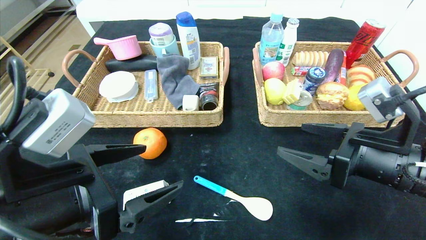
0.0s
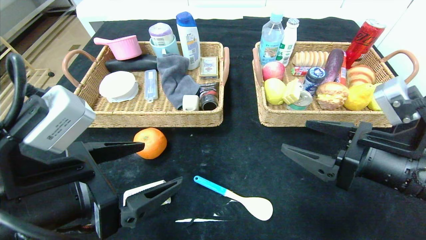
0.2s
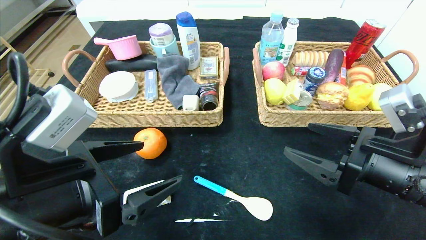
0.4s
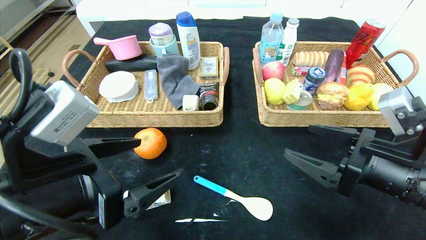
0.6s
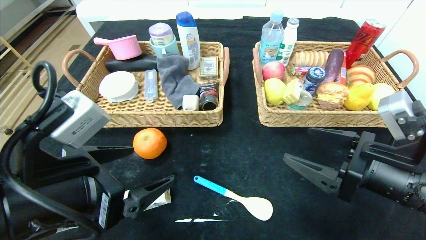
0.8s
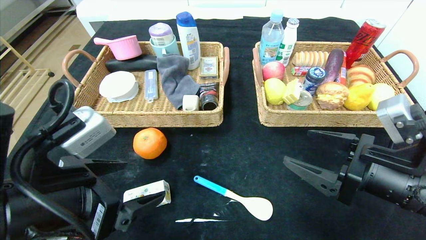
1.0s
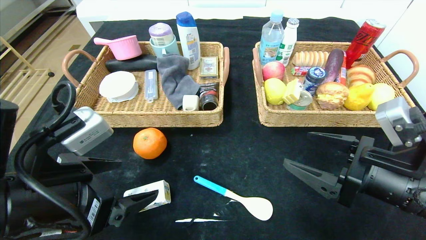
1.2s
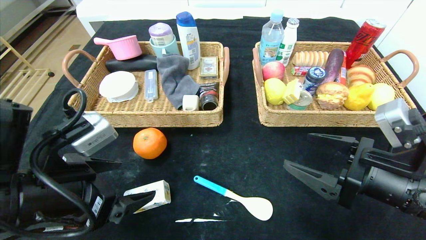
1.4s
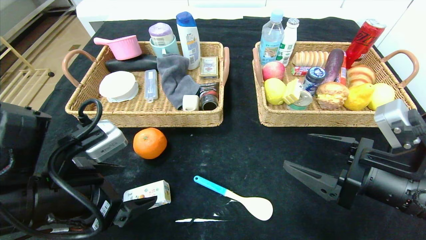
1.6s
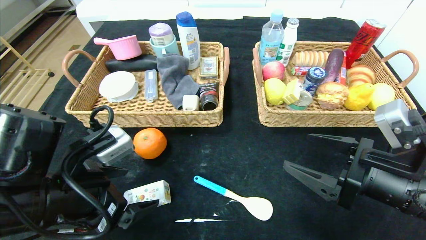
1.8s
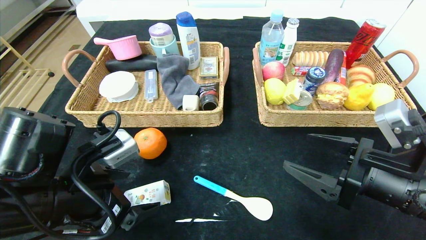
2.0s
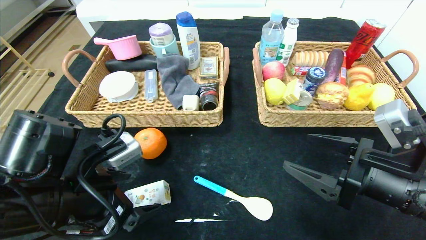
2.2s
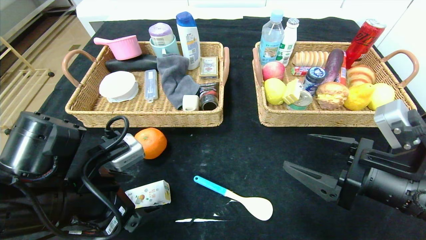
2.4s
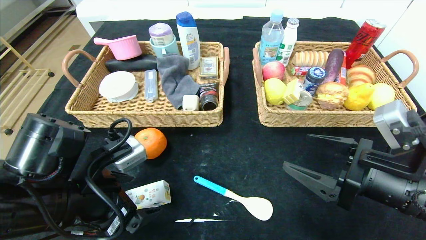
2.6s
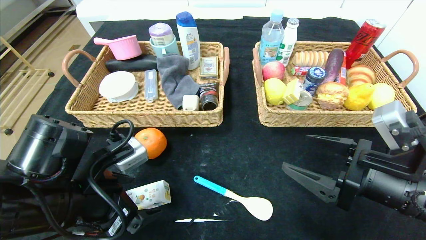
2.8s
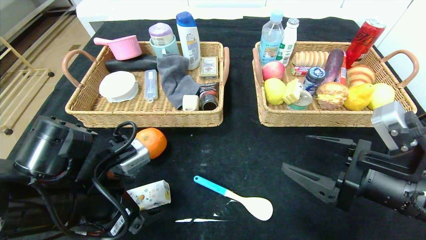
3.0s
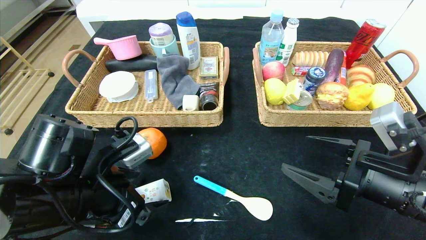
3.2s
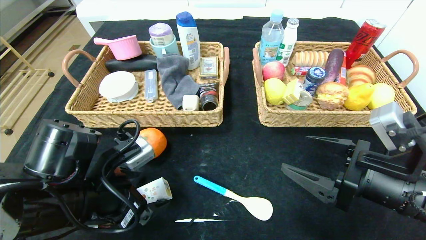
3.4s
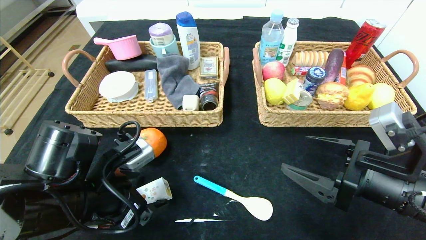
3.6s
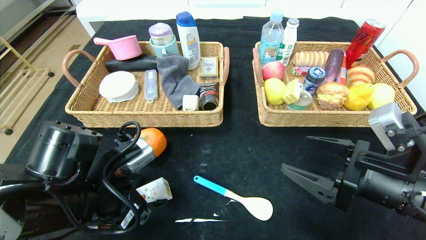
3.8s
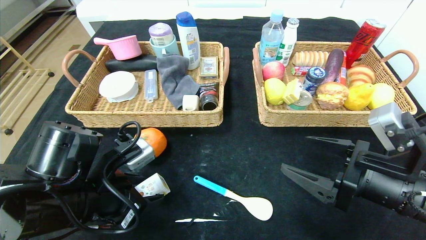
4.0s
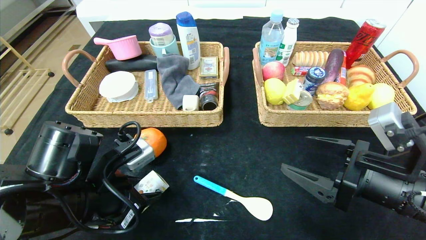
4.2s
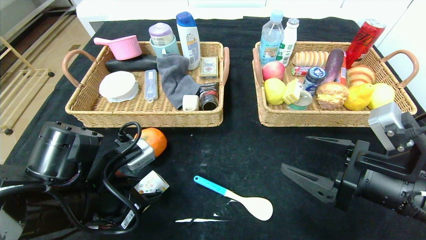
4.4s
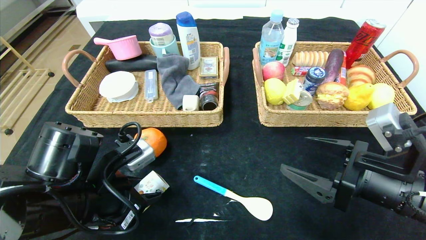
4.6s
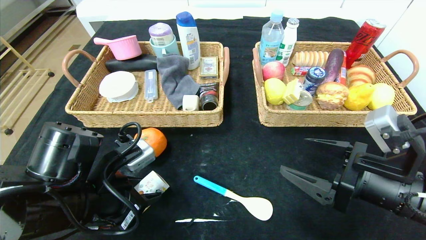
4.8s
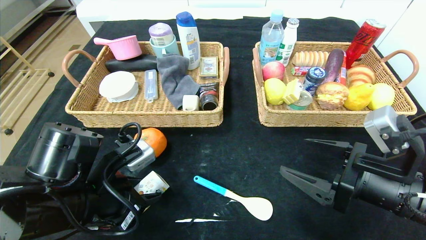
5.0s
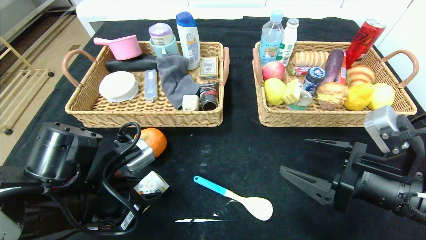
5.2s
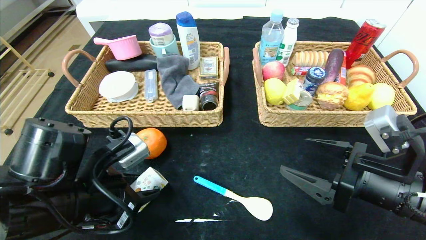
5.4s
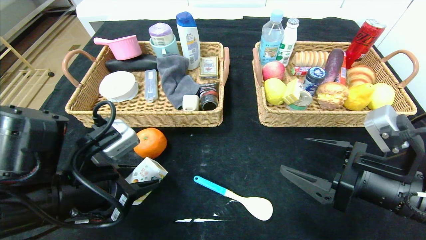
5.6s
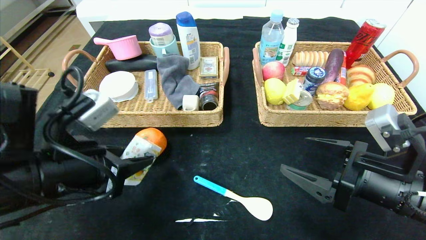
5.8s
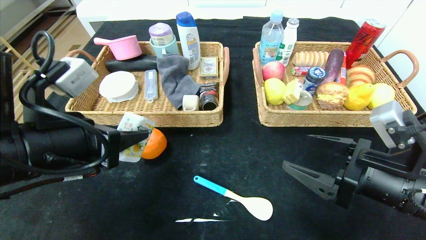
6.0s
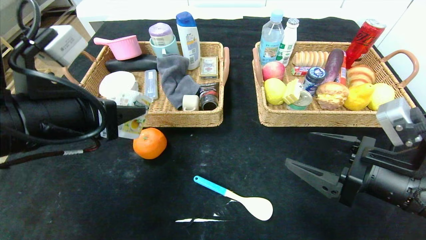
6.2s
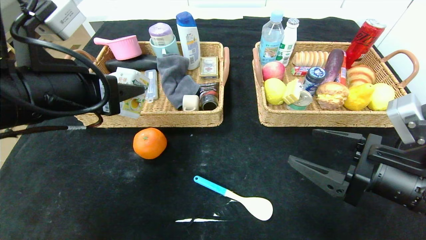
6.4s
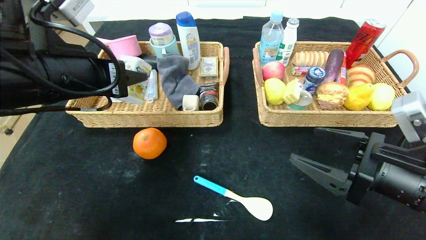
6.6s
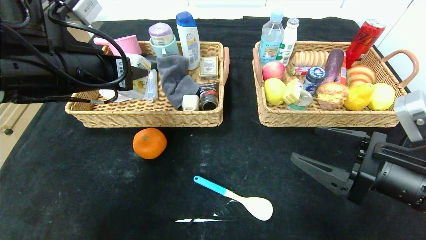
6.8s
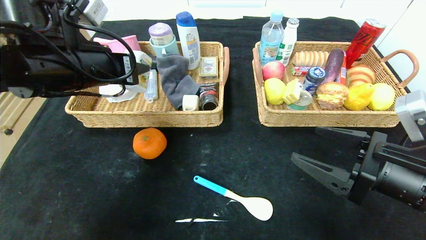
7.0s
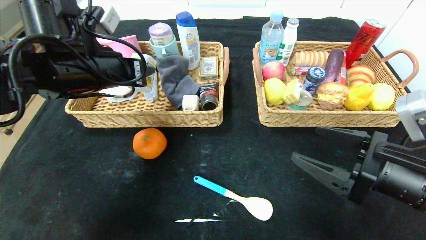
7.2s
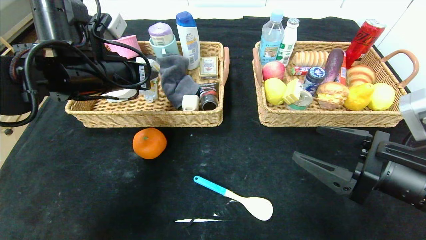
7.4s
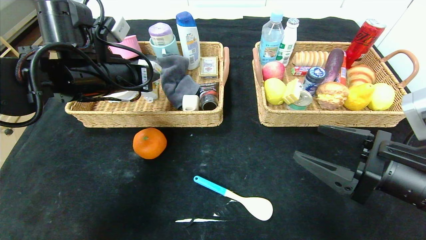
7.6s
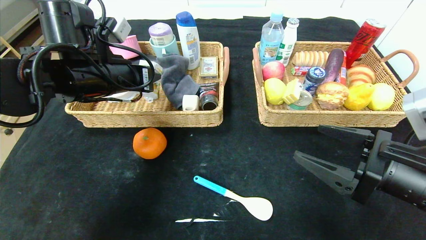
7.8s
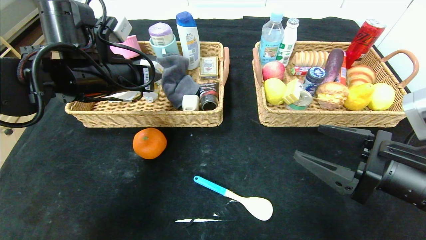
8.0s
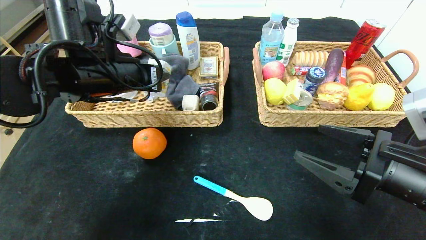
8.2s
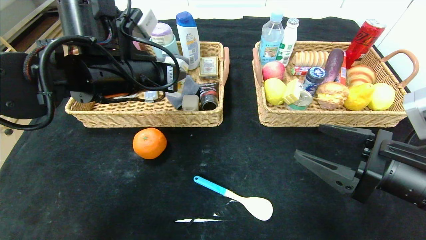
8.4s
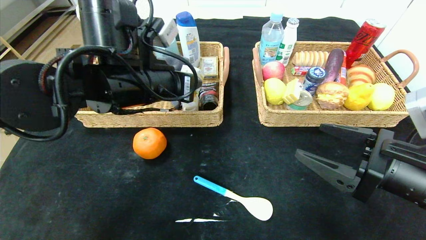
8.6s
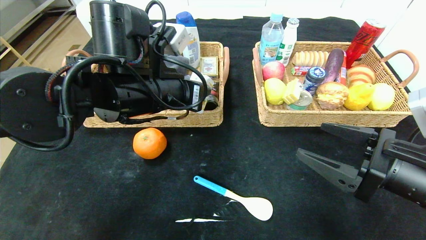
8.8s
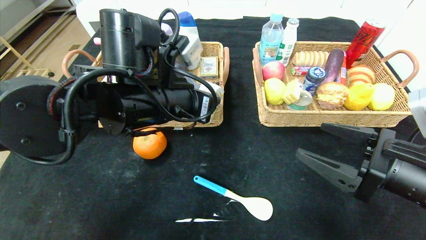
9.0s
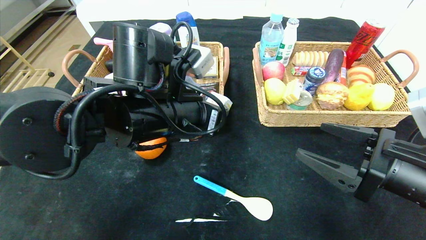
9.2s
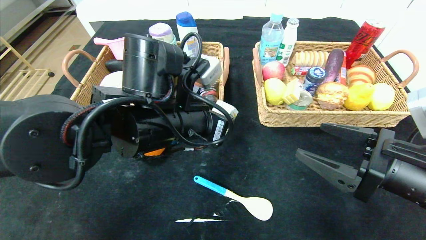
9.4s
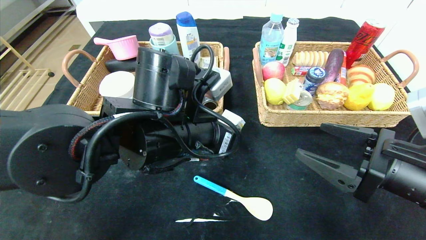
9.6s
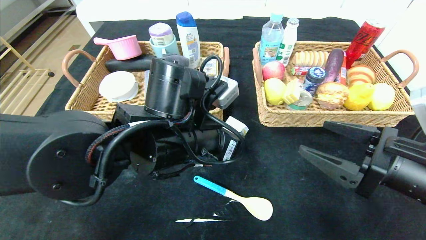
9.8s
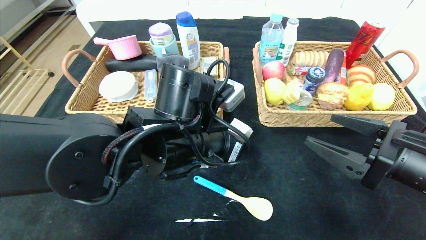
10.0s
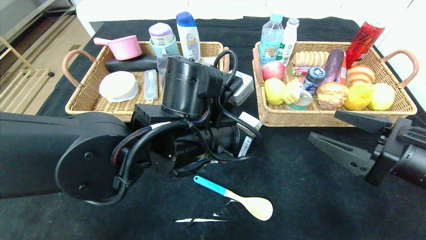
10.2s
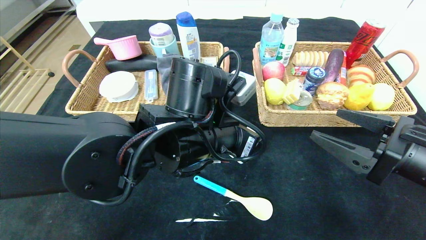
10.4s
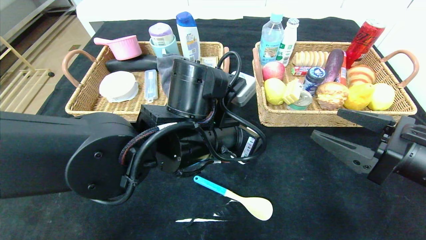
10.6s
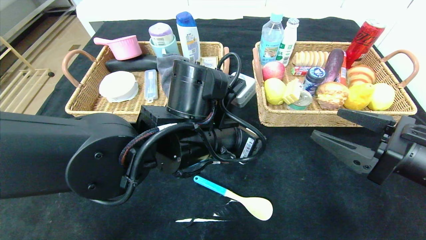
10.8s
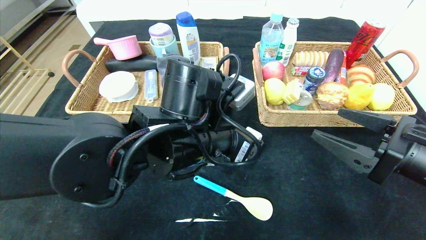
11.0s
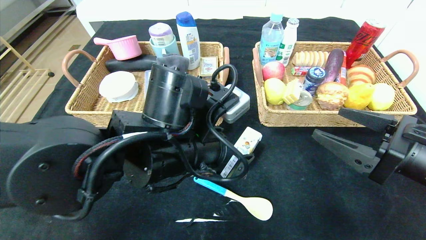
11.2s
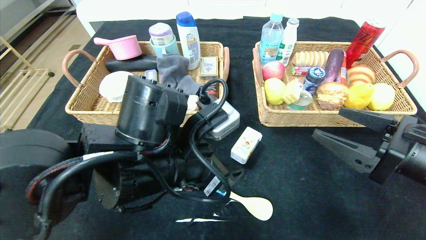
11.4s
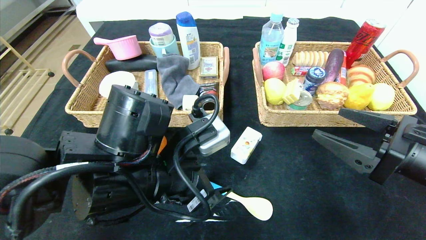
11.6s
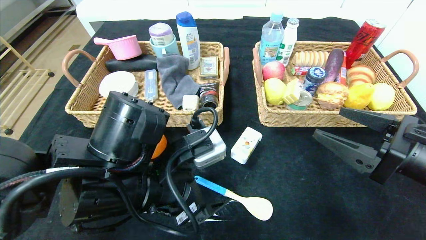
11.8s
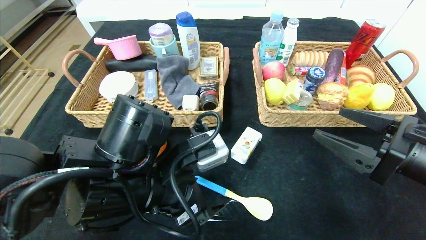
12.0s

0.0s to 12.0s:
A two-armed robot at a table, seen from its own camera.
Step, 0.0s to 11.4s: Place the square chewing gum in the center of the table.
1.6s to 3.0s: There are only small adjustments of the grippers.
3.0s to 4.4s: The left gripper closes.
4.4s to 6.0s: The left gripper heads upward, covering some 10 cm.
6.0s to 7.6s: The left gripper is displaced forward by approximately 15 cm.
7.6s to 9.0s: The left gripper moves to the right and backward, some 10 cm.
9.0s to 10.4s: The left gripper goes about 5 cm to the right.
10.4s to 12.0s: The left gripper goes about 10 cm to the left and backward, and opens.

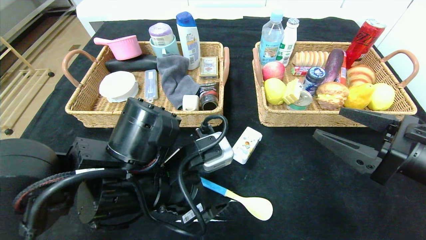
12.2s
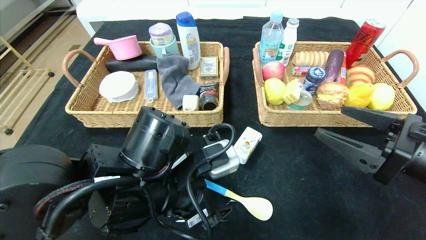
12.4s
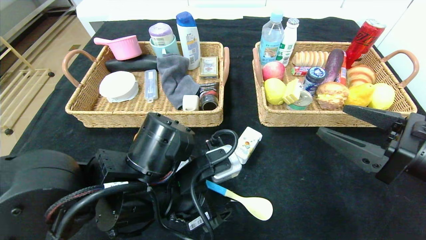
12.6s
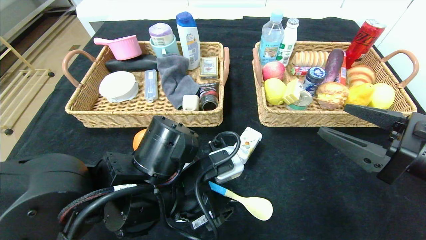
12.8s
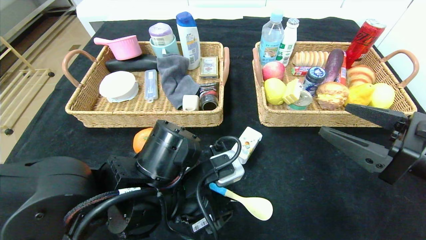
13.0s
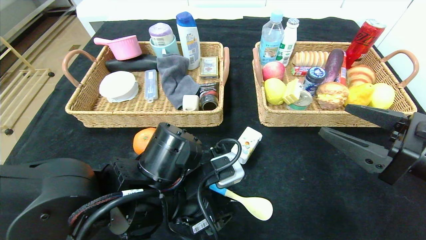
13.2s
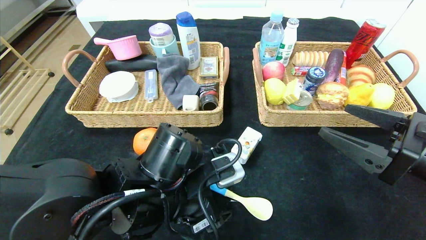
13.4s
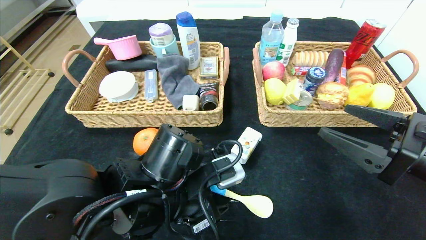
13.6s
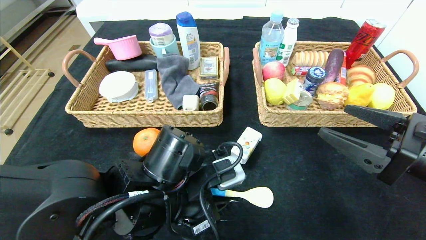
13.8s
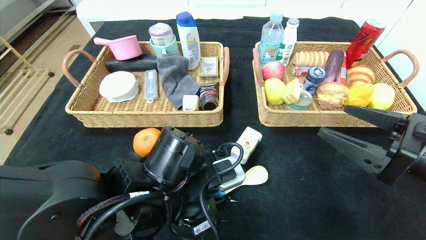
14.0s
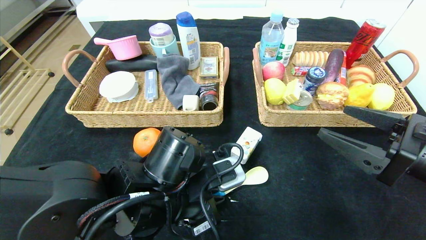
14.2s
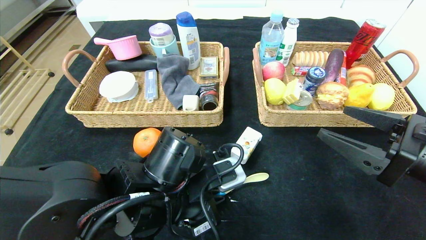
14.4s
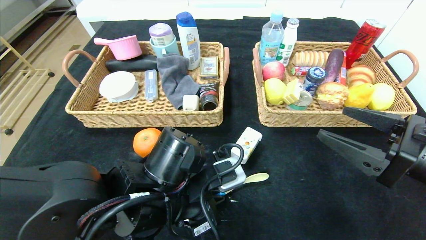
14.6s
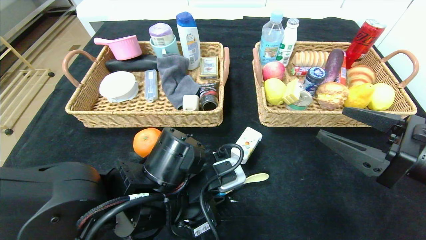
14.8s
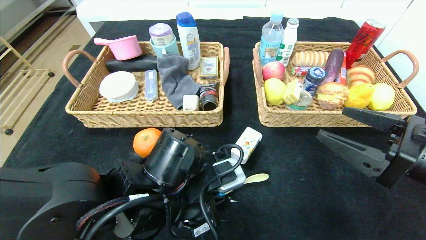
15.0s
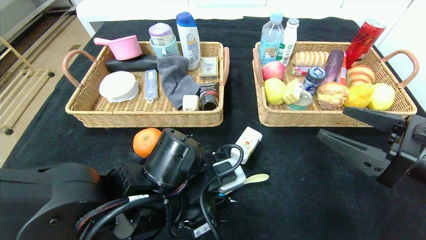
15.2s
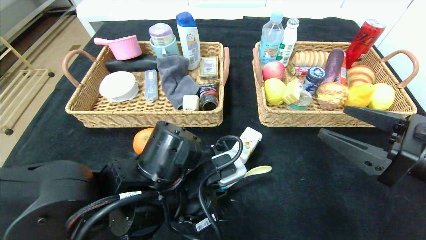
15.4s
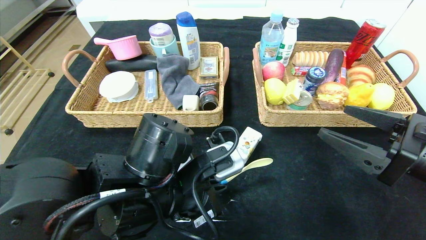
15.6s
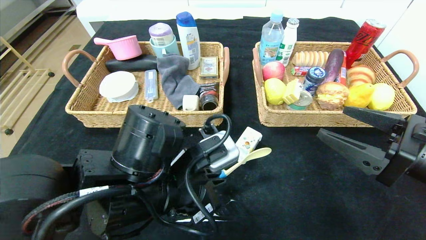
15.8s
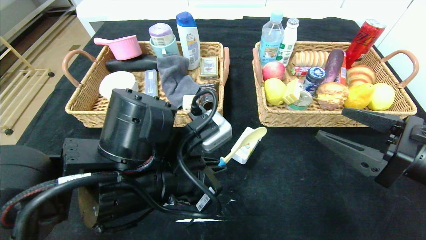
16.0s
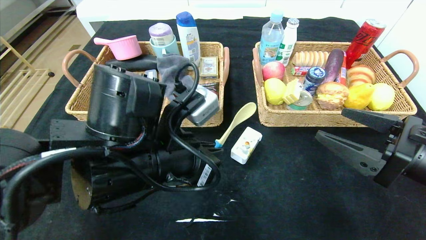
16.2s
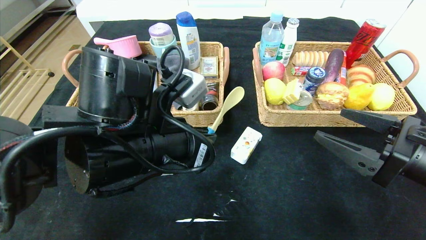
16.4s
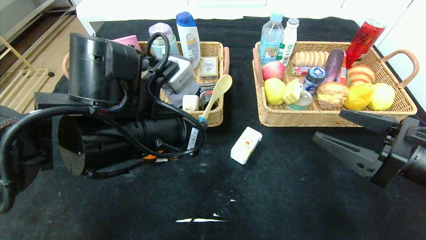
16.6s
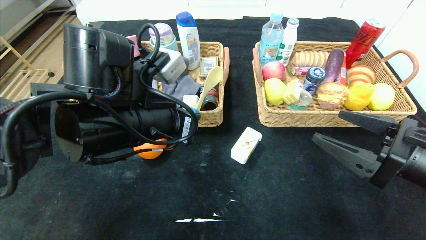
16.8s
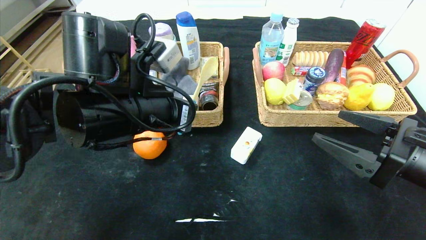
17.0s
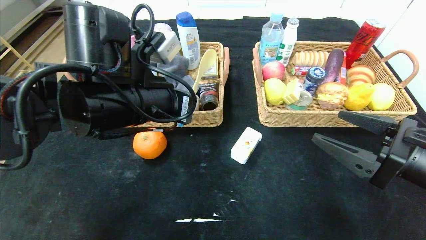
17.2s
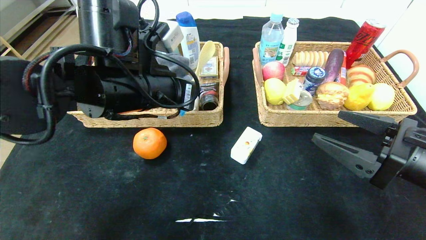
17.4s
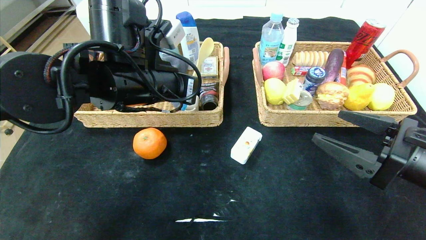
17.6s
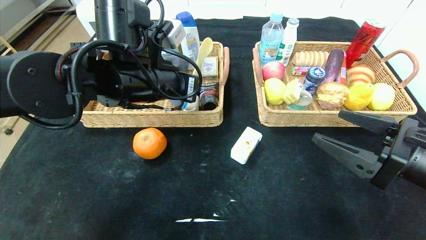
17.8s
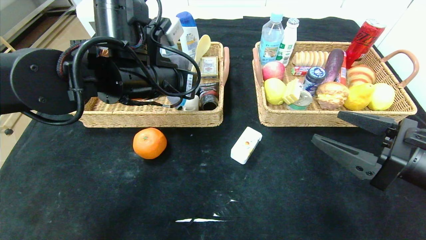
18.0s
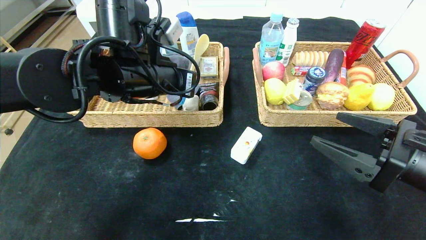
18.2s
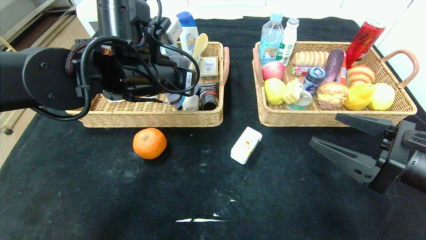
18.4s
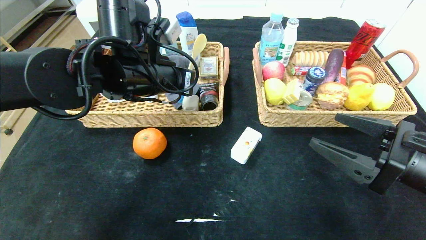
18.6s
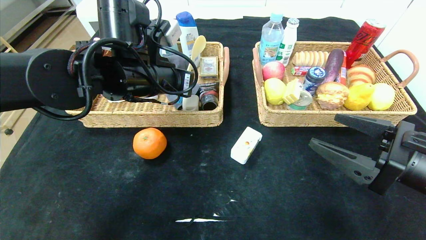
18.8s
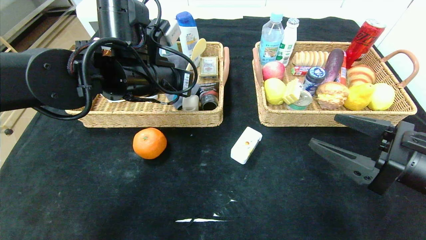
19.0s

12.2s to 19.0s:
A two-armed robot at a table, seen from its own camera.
12.2s to 13.6s: The left gripper closes.
13.6s to 15.0s: The left gripper closes.
15.0s to 16.2s: The left gripper shifts some 5 cm upward.
16.2s to 17.6s: The left gripper goes about 10 cm forward and upward.
17.6s to 19.0s: The grippers stay close to where they were, moving slightly.
